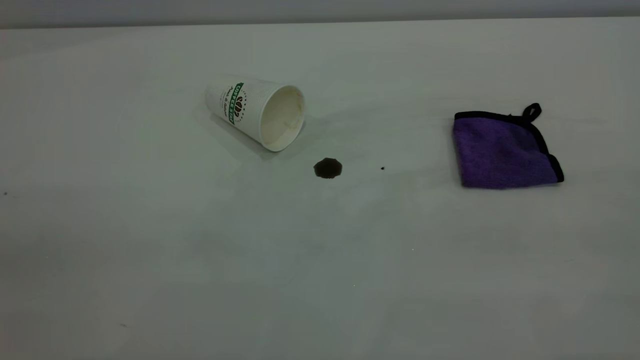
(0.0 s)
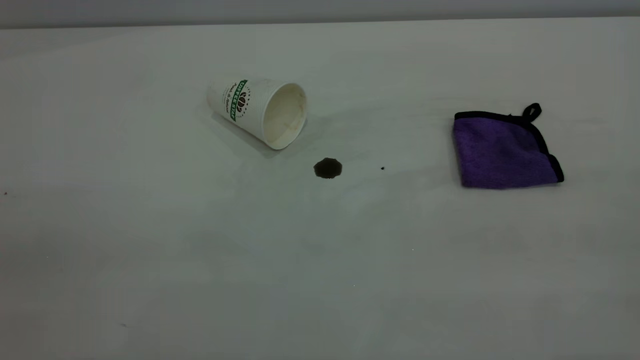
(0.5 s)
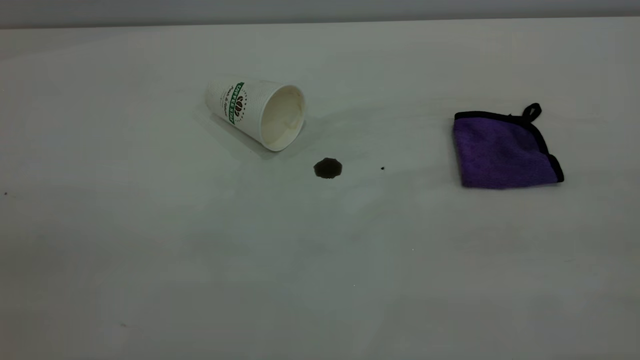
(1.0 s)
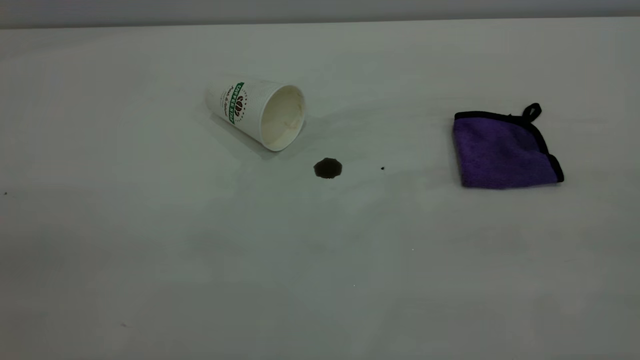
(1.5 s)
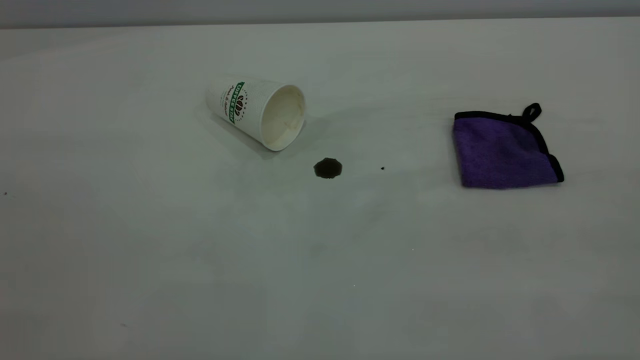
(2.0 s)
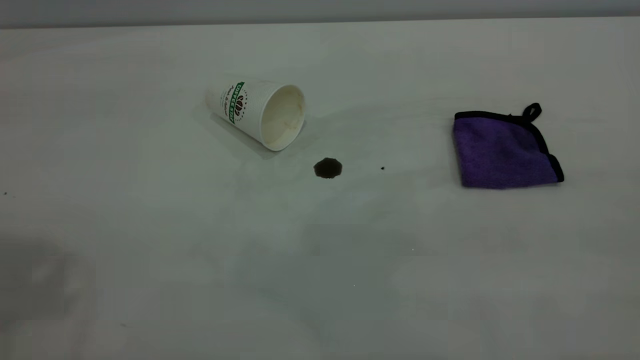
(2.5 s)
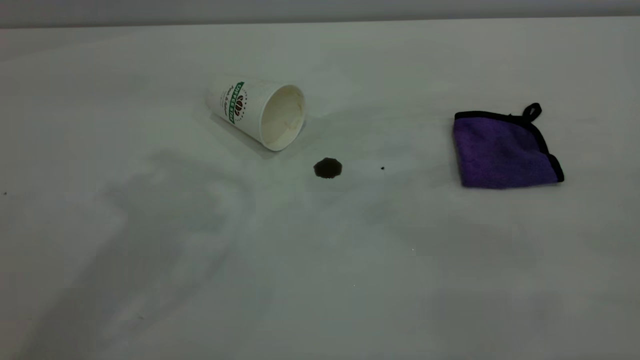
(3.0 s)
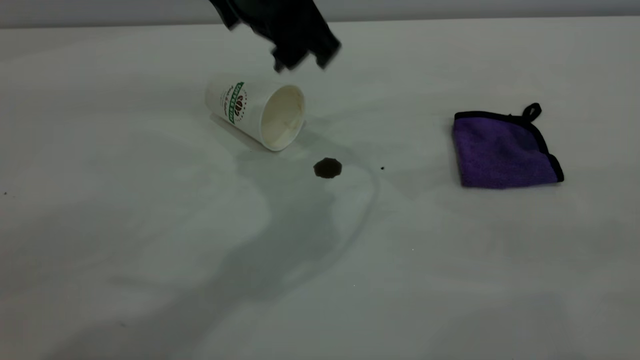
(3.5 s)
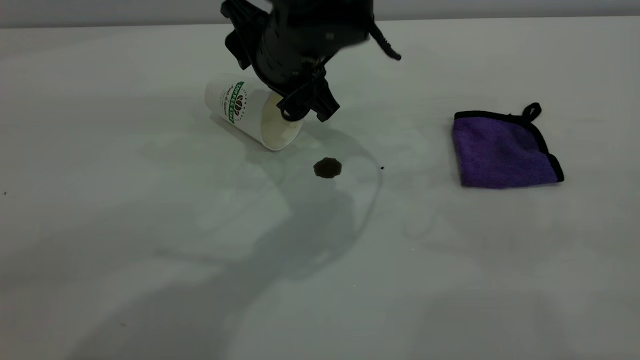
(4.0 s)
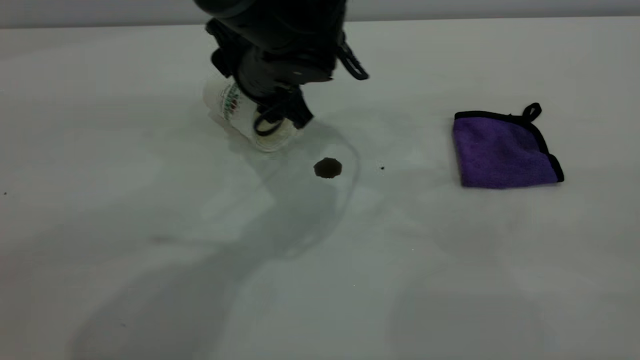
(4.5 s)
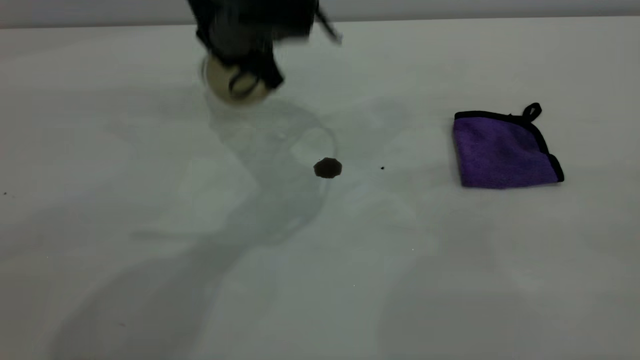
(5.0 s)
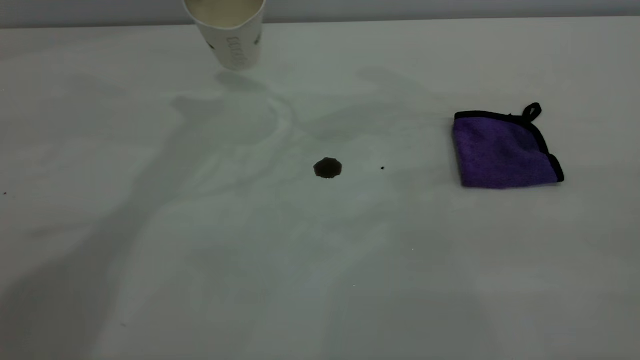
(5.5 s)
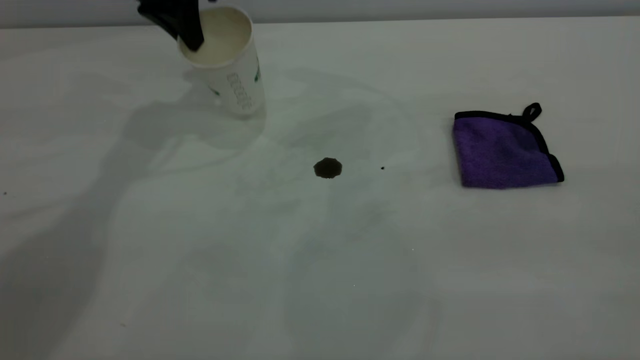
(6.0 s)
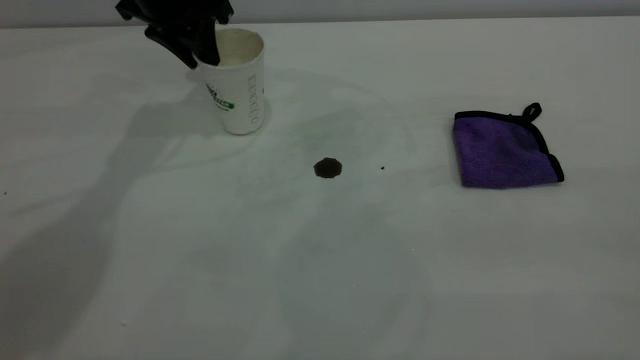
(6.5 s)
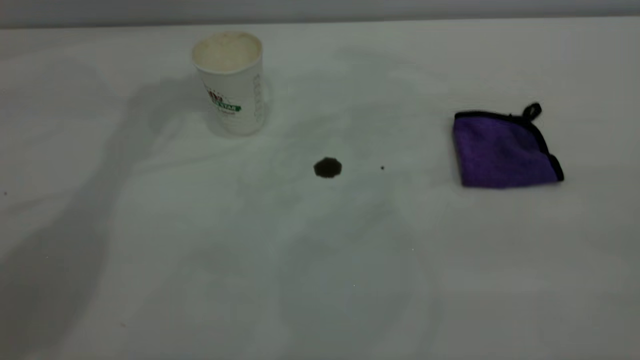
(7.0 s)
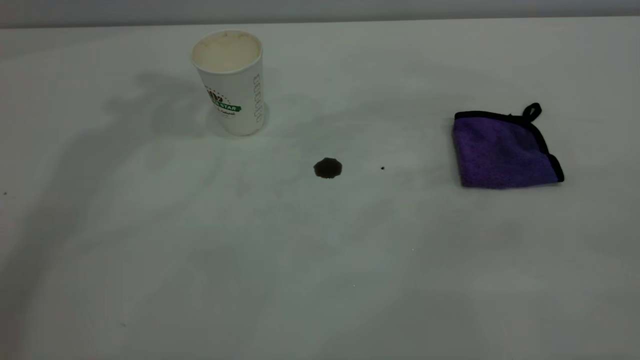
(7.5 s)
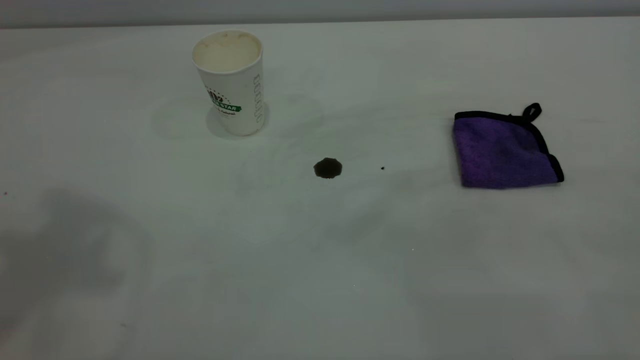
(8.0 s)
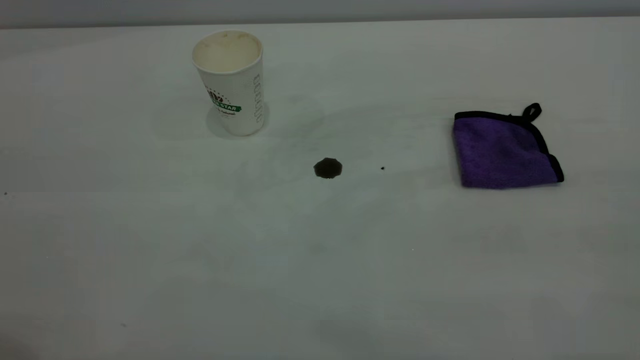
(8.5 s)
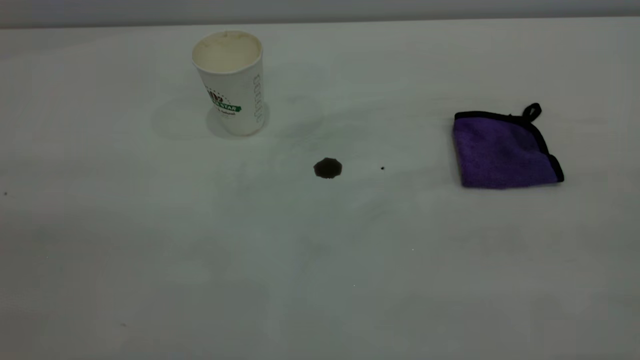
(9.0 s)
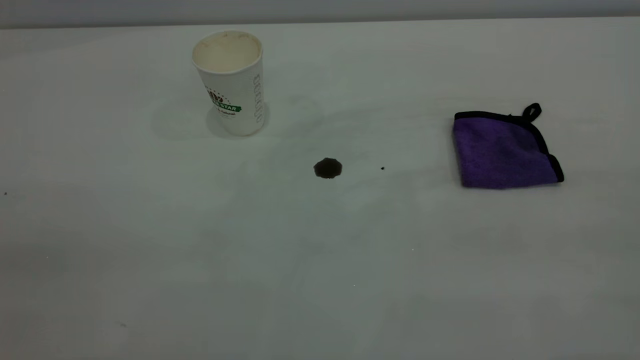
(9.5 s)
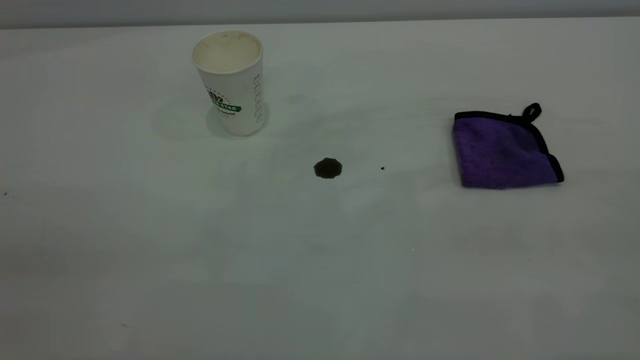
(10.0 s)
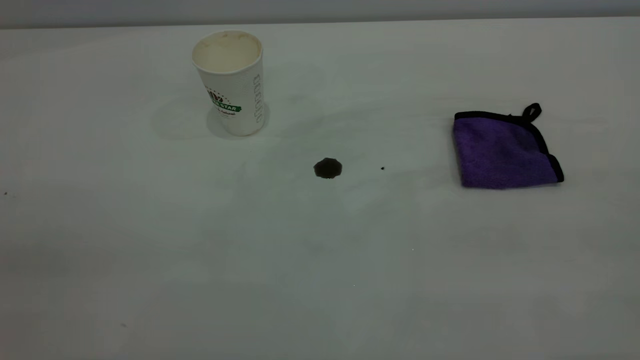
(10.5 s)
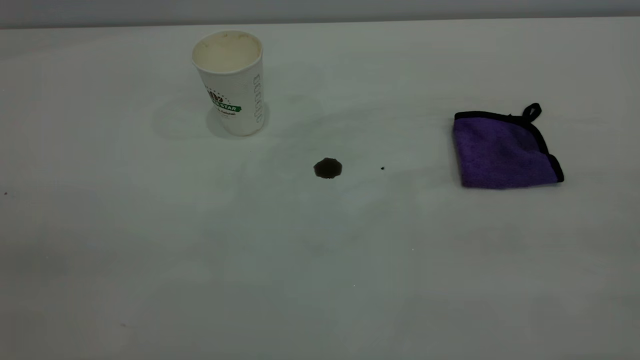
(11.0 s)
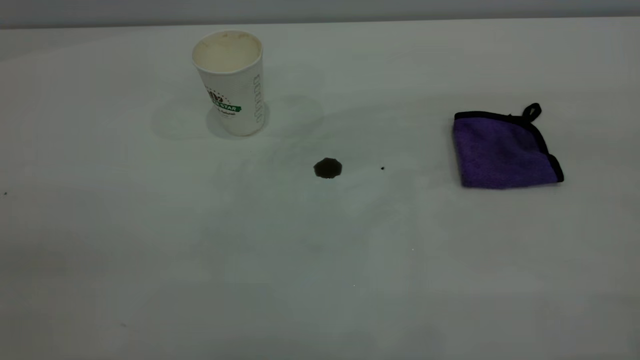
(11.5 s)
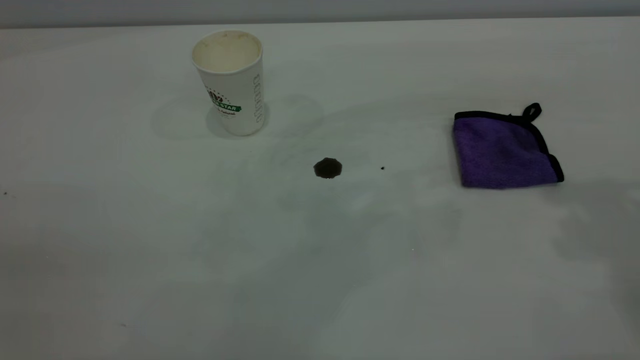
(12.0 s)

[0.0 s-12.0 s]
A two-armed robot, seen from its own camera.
Task of the whole recording: the left gripper pick up the fallen cup and place it upright, the right gripper grasp the purple rag and wipe the coffee stain on the table, the right gripper put the purple rag back in its original position.
Step, 0.0 to 6.5 s: Stand the paper cup upright.
2.0 to 4.0 s: The left gripper is displaced forward, to the right and downward by about 50 cm.
4.0 to 6.0 s: The left gripper moves to the left and forward, about 20 cm, and closes.
6.0 to 8.0 s: The left gripper moves upward and backward, about 40 cm, and opens up.

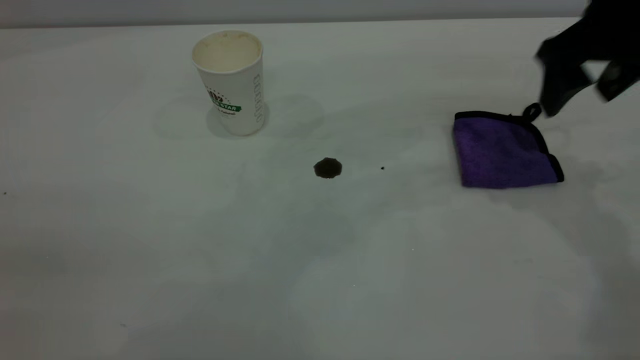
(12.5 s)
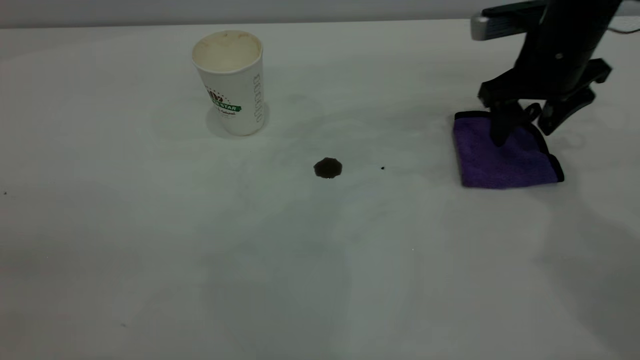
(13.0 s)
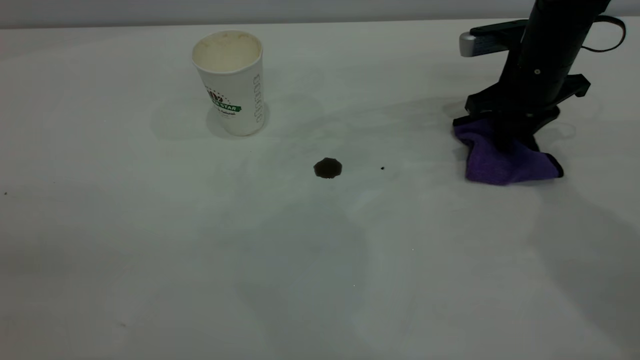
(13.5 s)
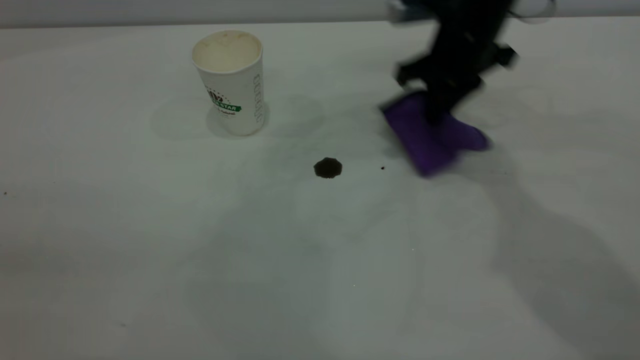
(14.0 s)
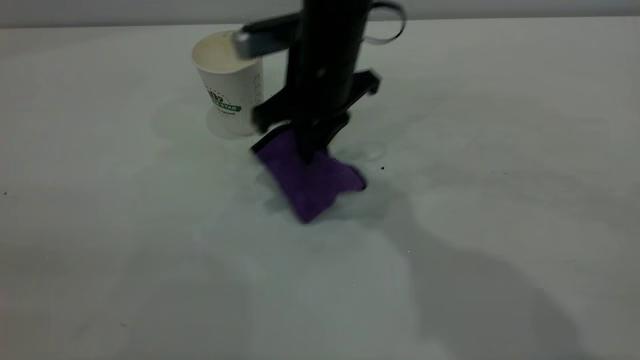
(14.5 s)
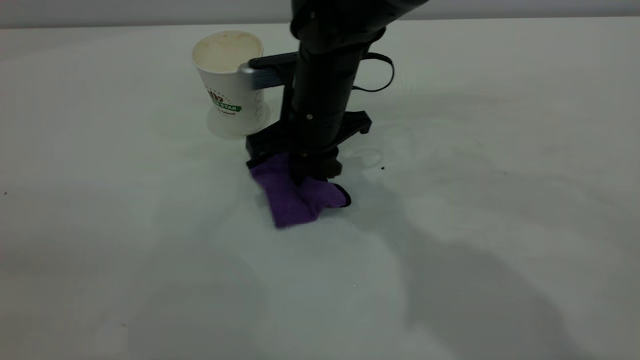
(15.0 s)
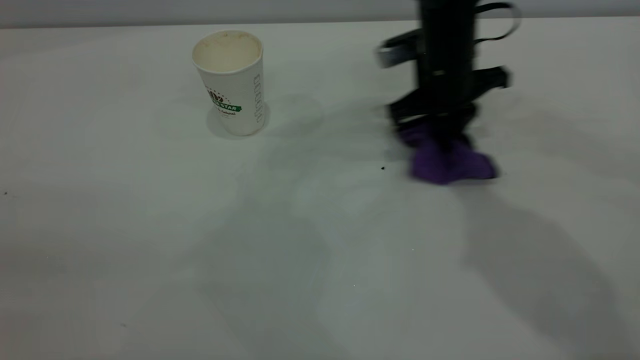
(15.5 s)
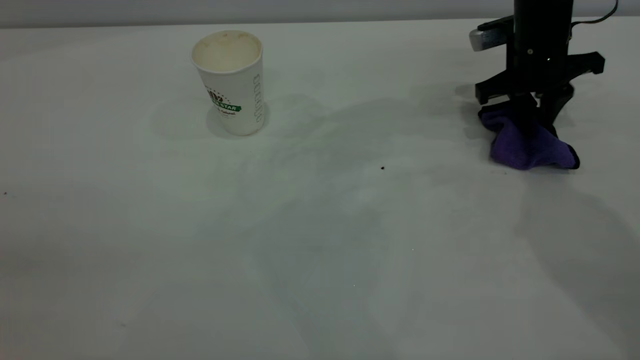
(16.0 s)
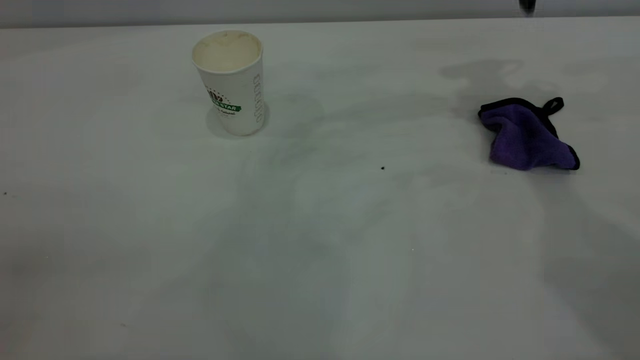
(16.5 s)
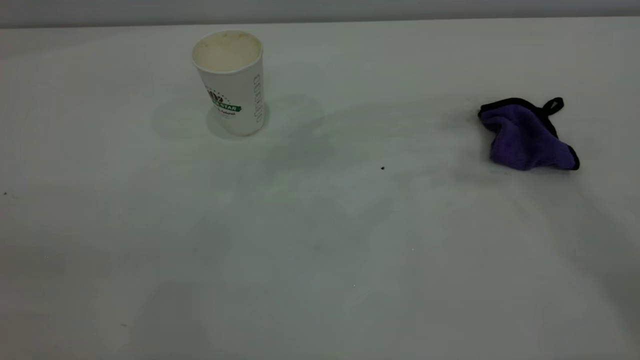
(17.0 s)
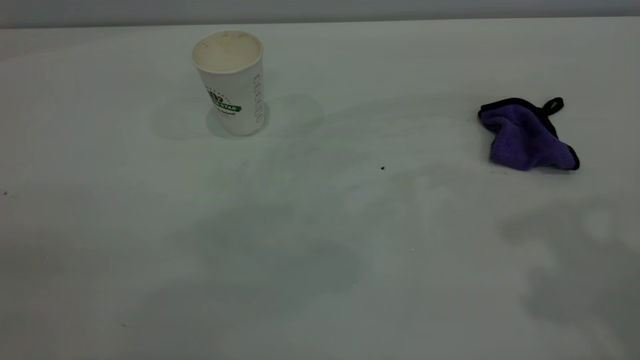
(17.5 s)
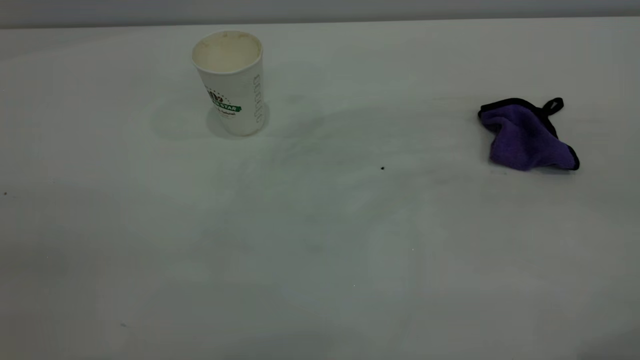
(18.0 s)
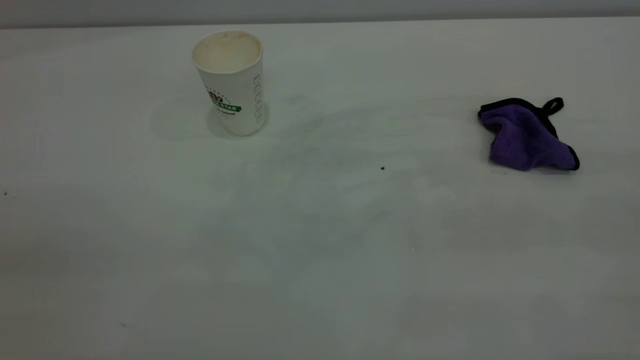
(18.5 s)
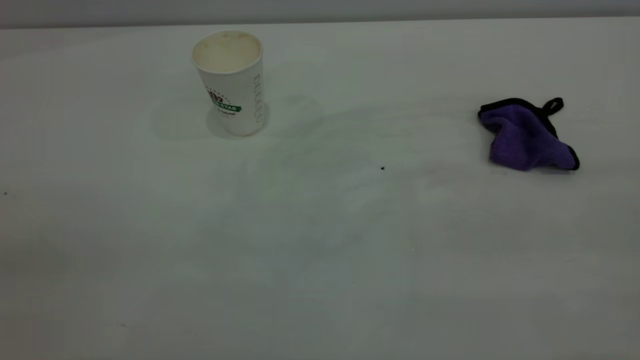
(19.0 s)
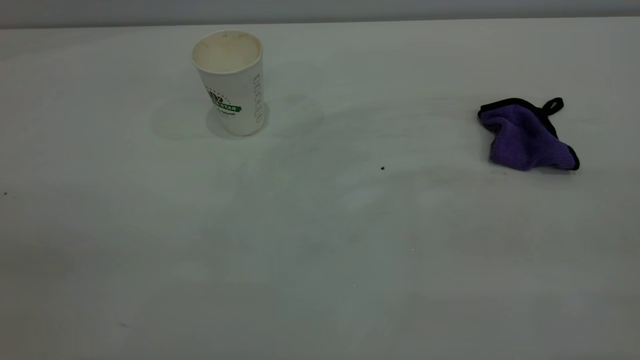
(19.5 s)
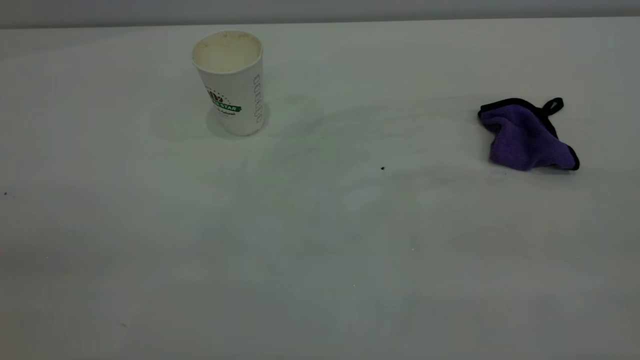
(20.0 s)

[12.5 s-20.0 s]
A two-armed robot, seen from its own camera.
Task of the whole recording: the left gripper pick up the fallen cup and place it upright, the right gripper grasp the purple rag and wipe the coffee stain on the table, the right gripper put the purple rag back in its original position.
Step, 12.5 to 16.0 s: Wipe the stains off the table with a rag.
12.5 to 14.5 s: The right gripper travels to the left by roughly 25 cm, and closes up.
14.5 to 16.5 s: The right gripper travels to the right, upward and forward by some 30 cm, and opens its fingers.
